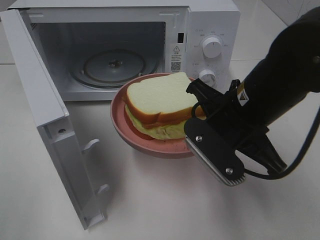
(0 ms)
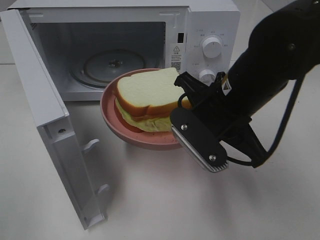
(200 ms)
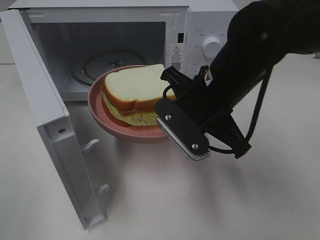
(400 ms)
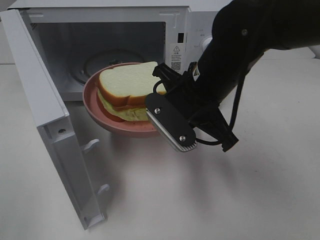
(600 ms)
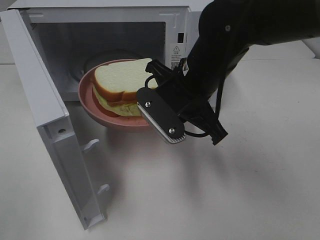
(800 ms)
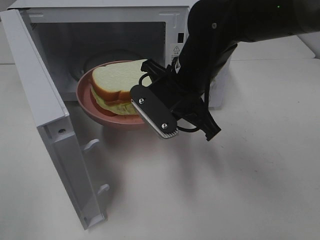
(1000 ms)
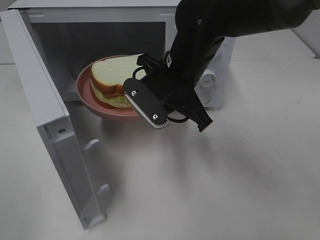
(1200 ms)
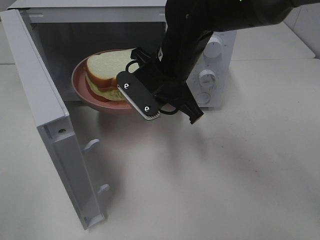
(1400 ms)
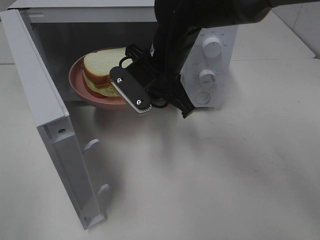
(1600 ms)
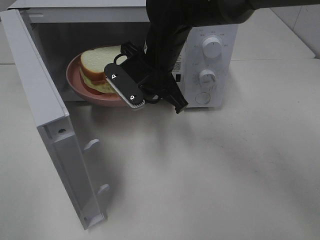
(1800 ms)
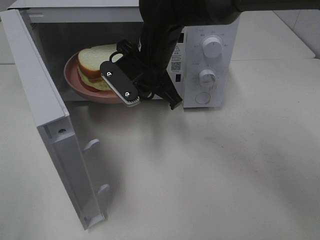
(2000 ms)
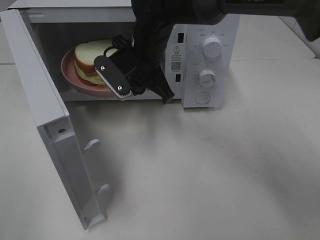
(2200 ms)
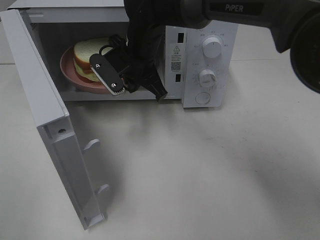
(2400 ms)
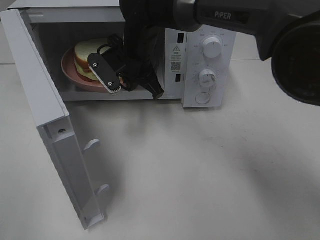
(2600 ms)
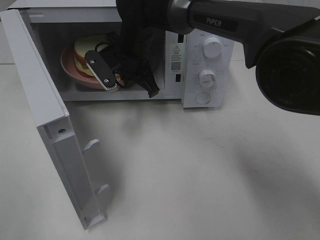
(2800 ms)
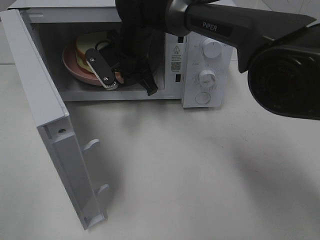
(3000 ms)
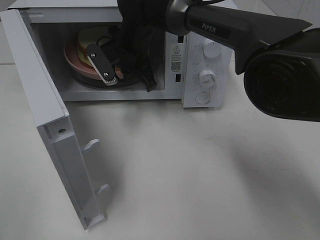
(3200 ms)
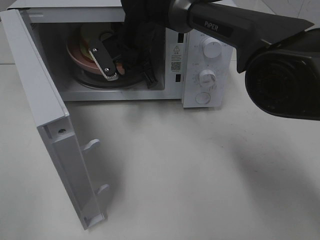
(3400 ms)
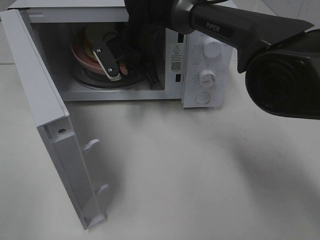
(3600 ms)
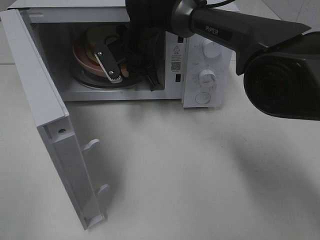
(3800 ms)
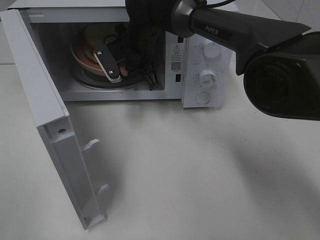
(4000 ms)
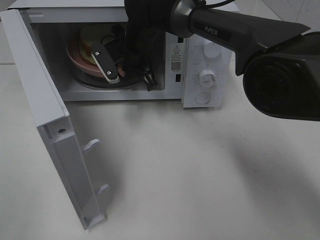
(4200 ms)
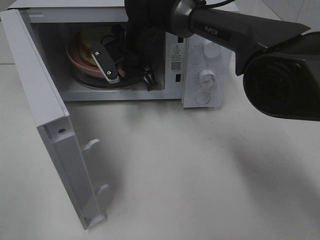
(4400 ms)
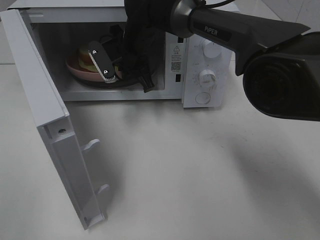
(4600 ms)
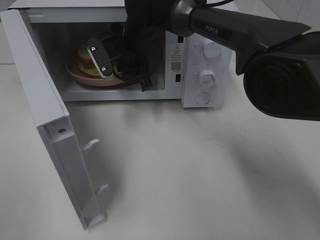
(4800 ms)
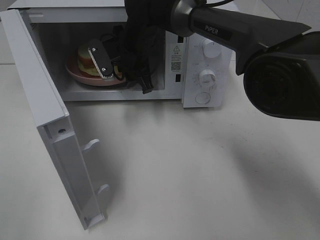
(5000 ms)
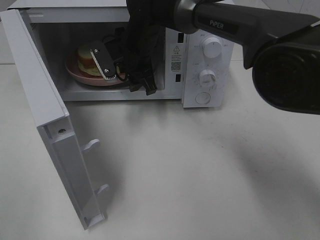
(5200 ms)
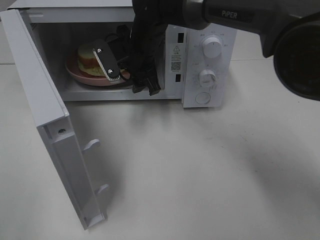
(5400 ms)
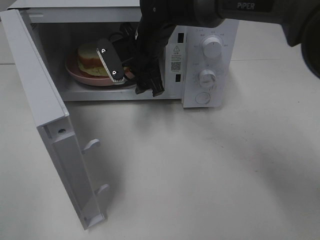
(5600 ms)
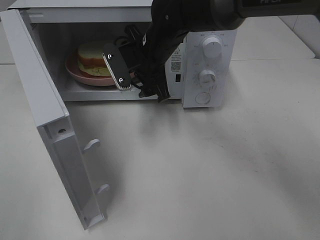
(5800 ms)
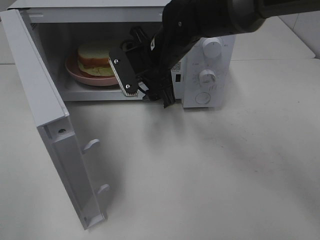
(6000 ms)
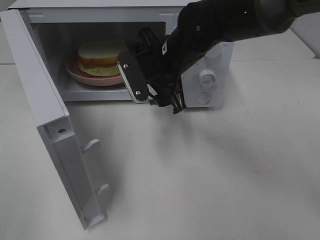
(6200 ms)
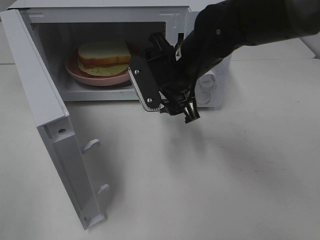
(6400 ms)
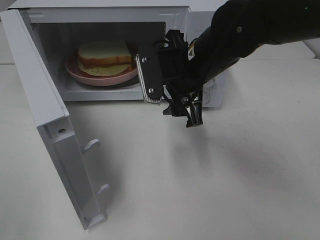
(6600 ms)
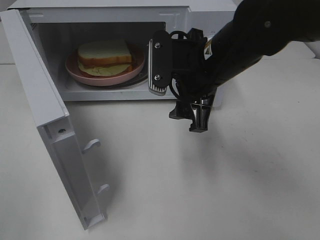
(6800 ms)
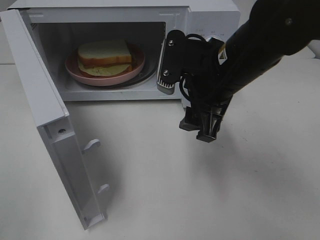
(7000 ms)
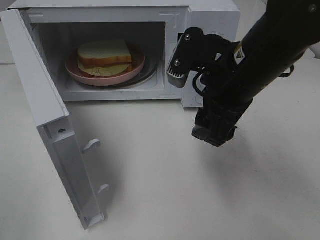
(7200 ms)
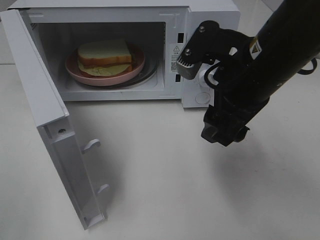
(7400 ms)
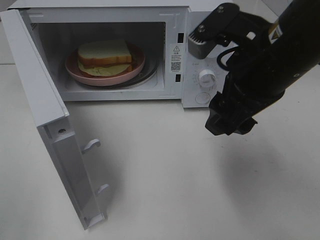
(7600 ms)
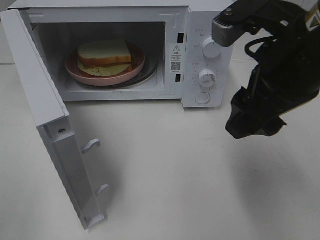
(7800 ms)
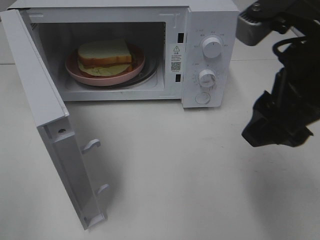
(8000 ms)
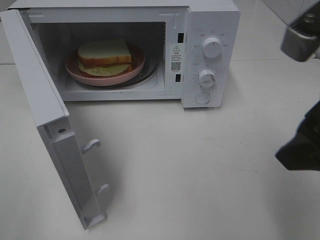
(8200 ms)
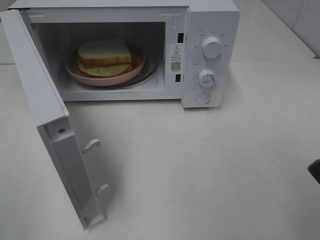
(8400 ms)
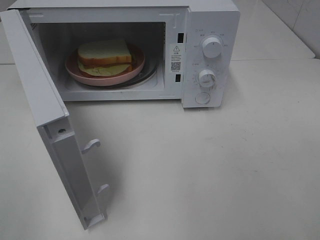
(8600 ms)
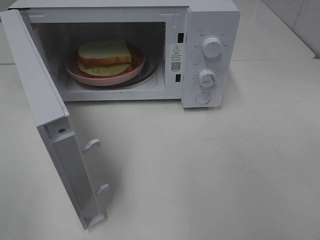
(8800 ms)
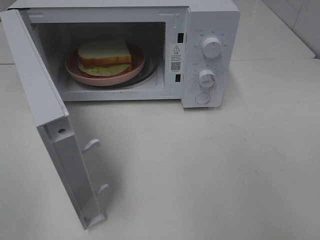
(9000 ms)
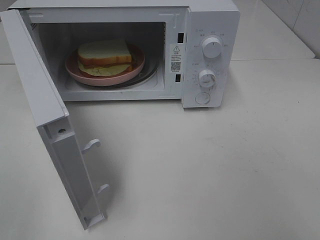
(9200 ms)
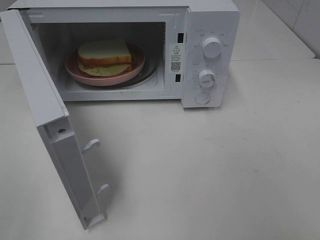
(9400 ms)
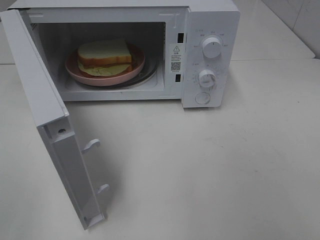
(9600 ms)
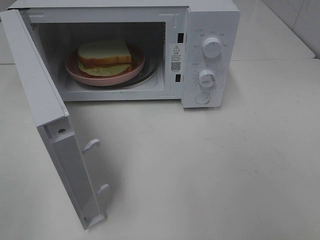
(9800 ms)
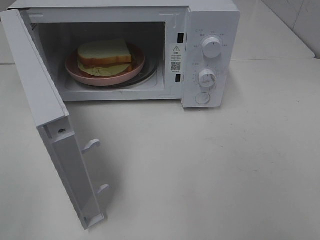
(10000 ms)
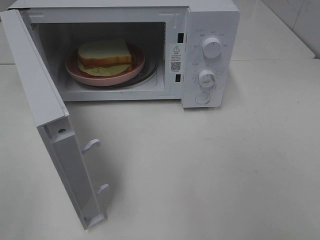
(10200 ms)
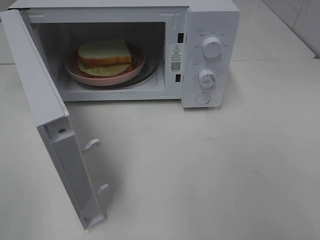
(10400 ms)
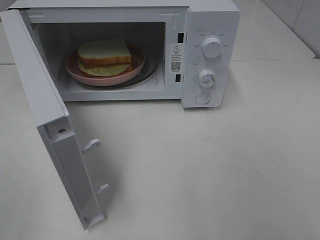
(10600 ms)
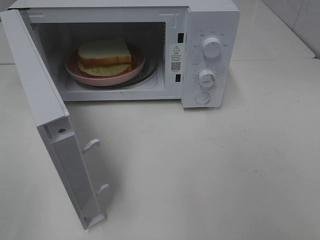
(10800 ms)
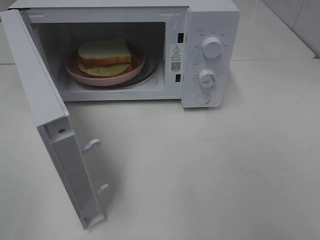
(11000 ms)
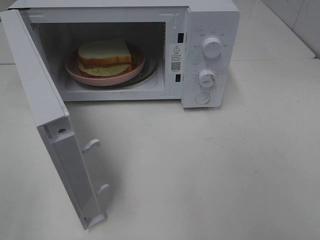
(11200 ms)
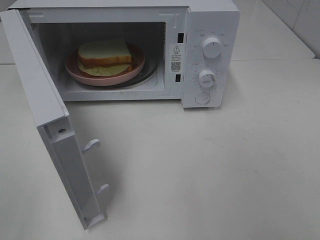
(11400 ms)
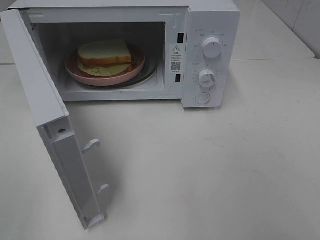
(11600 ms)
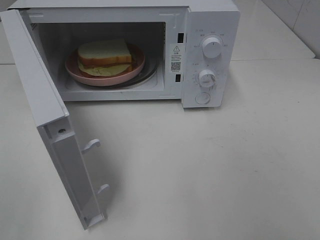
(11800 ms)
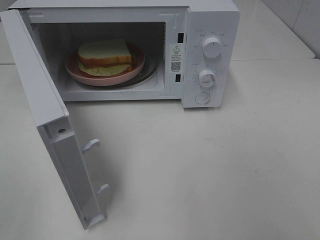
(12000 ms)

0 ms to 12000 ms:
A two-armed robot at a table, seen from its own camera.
Task of the whole recording: Heat Sandwich.
Step, 0 ms to 4800 ms: Right hand: place the plate in the microwave.
0 ms to 1600 ms: The right gripper shifts some 15 cm forward and to the left.
1600 ms to 3000 ms: The right gripper is displaced forward and to the left by some 10 cm.
3000 ms to 4400 ms: The grippers move only a little.
4400 ms to 6000 ms: The right gripper heads backward, covering approximately 5 cm, and opens.
6000 ms to 7600 ms: The right gripper shifts roughly 20 cm backward, to the right and upward.
7600 ms to 9000 ms: The right gripper moves backward and to the right, about 20 cm.
10400 ms to 12000 ms: Both grippers stay put.

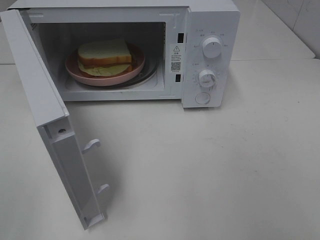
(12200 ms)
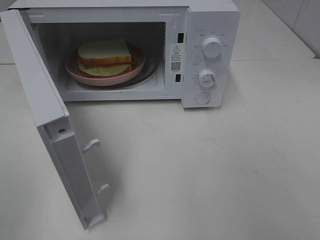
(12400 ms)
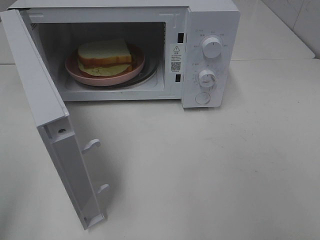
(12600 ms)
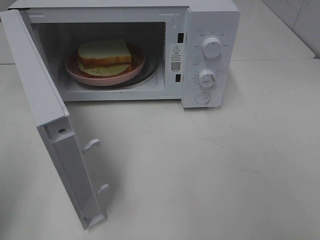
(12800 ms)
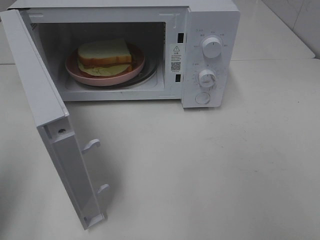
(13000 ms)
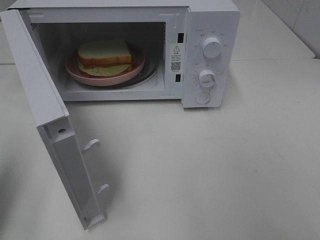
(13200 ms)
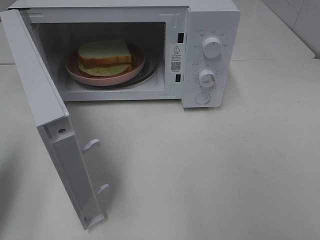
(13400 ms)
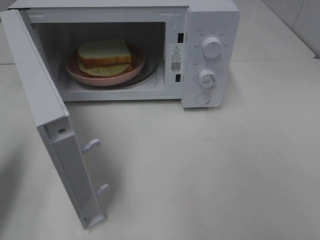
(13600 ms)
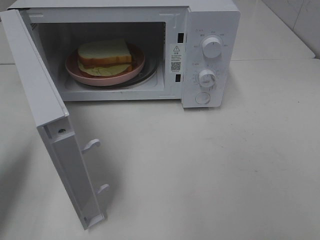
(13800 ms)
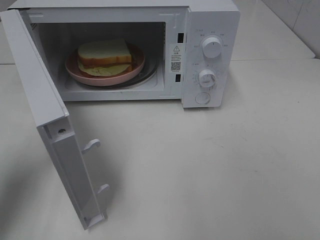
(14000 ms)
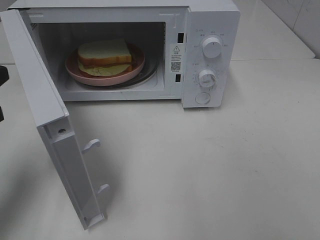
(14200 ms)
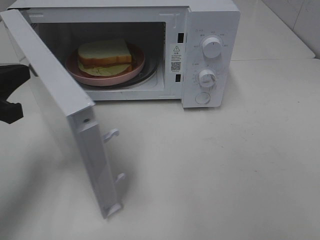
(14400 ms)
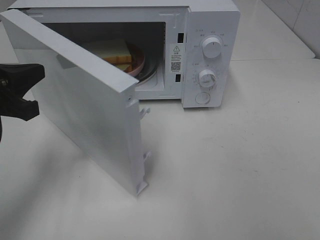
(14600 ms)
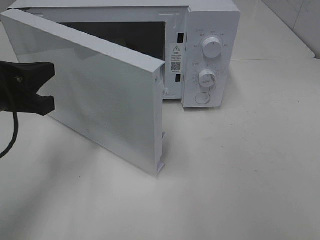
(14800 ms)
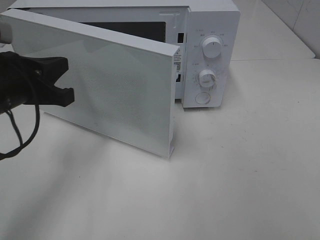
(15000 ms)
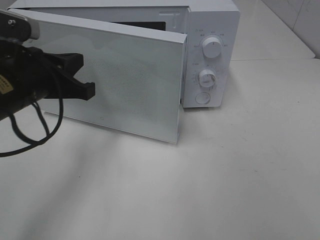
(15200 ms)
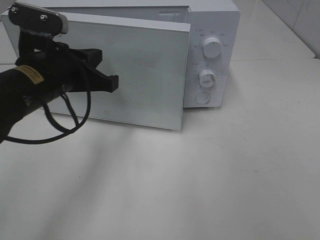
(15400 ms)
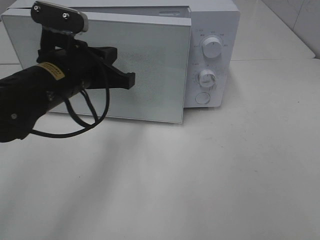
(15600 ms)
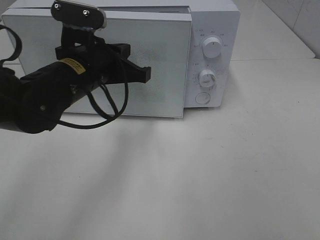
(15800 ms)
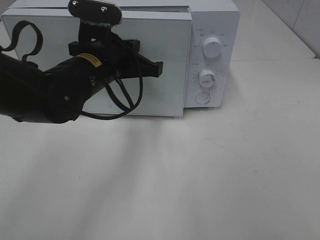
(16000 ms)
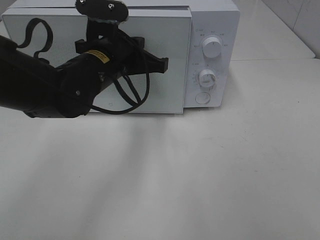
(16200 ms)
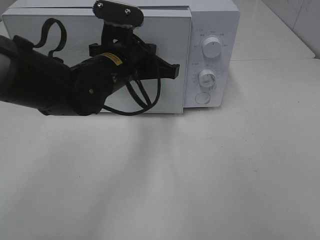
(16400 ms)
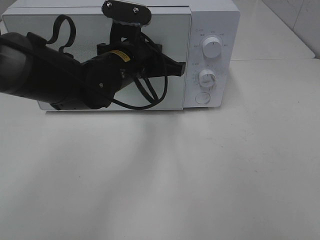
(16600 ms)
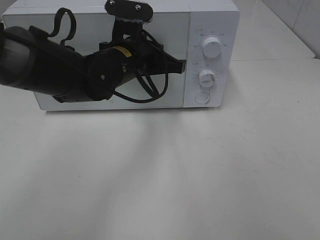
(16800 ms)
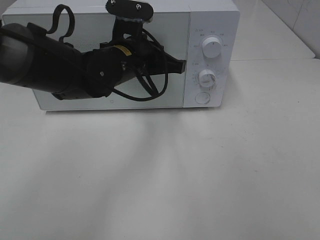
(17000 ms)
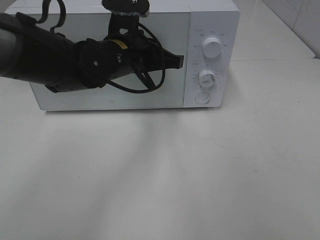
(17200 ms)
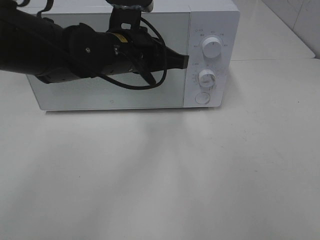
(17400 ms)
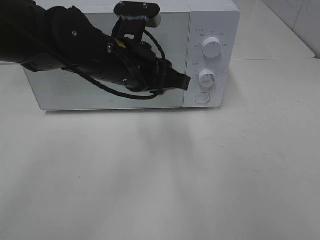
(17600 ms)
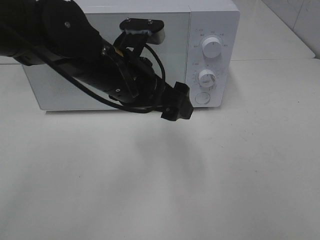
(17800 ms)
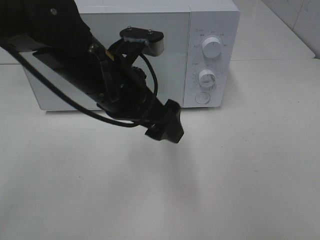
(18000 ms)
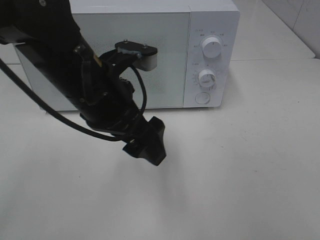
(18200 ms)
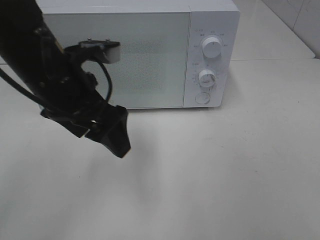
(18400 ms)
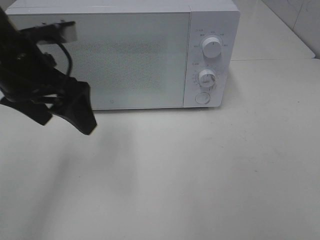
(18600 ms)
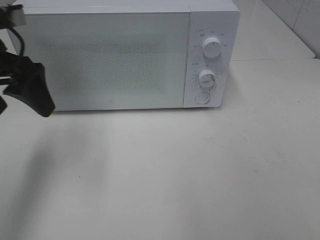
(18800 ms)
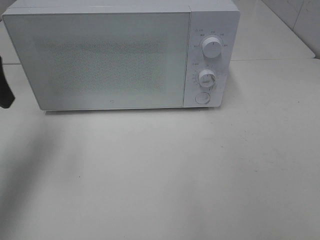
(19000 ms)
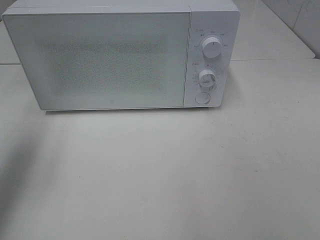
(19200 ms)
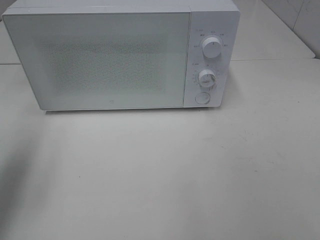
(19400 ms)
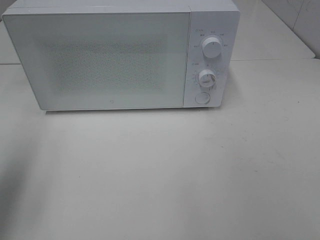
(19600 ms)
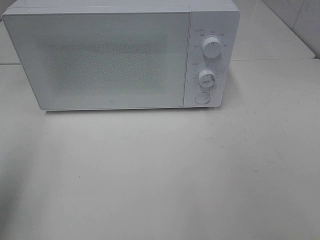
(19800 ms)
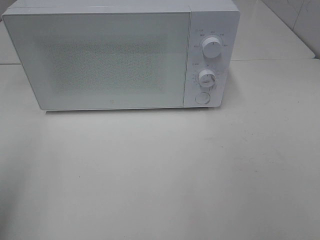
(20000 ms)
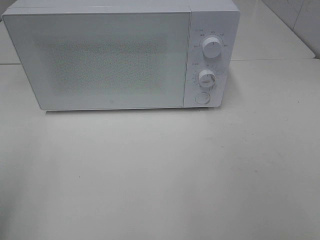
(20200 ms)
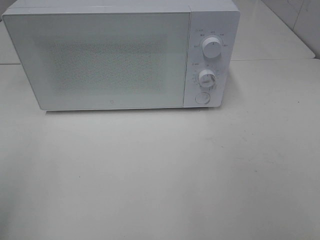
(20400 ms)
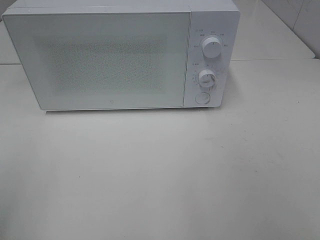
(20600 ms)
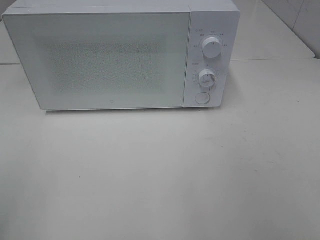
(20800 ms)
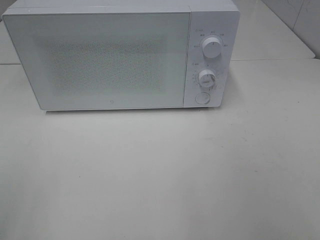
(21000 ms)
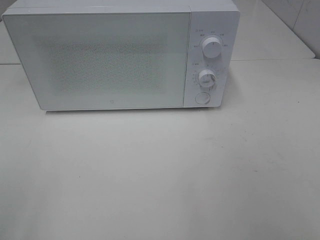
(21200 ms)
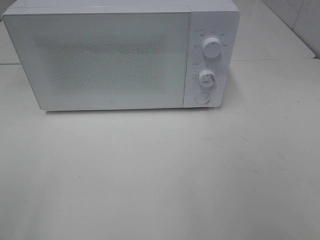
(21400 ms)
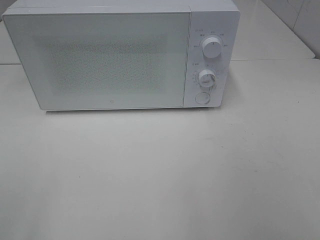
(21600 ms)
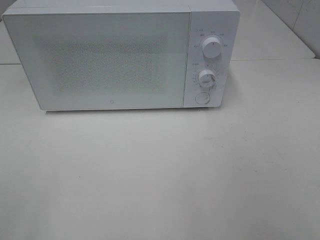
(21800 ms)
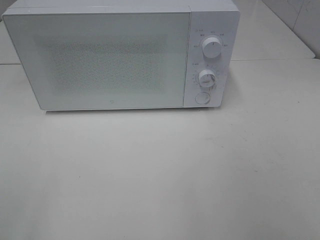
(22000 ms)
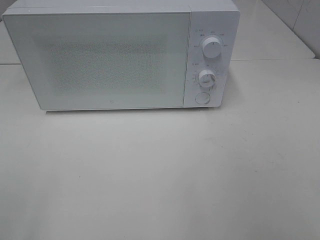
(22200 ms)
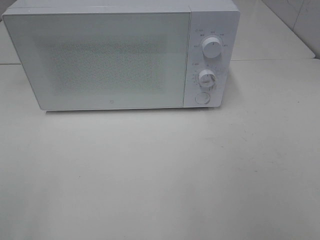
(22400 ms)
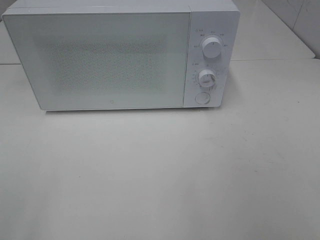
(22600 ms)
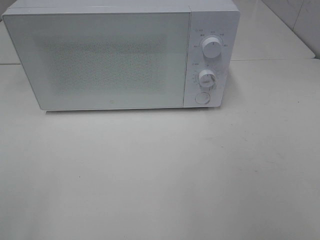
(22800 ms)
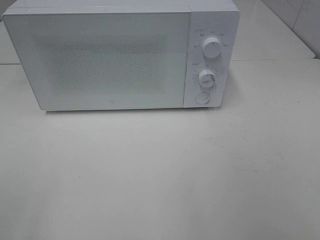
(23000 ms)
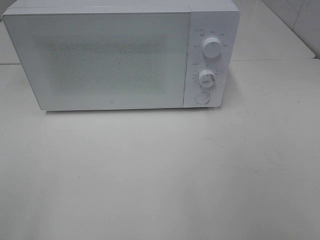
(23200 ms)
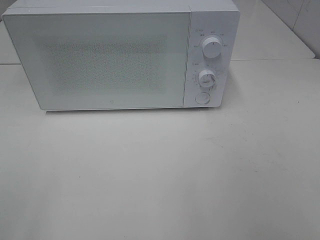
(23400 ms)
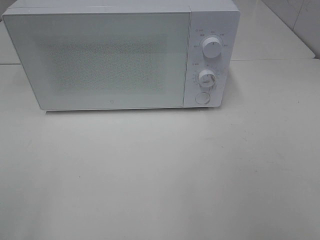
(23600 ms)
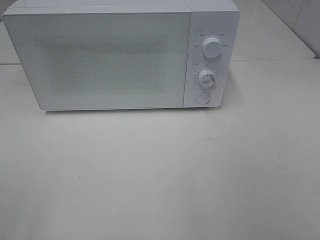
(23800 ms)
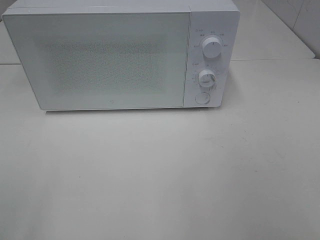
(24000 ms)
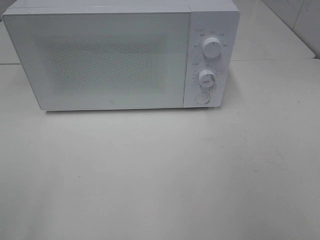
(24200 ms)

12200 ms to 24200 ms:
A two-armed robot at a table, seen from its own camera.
Task of the whole recording: Heat Sandwich.
Step, 12200 ms to 17800 ms: Left hand: close the microwave door.
12200 ms to 13800 ms: The left gripper travels forward by about 20 cm, and closes its fingers.
13800 ms to 15200 ms: The left gripper moves to the right and forward, about 15 cm.
15200 ms to 16600 ms: The left gripper is displaced to the right and forward by about 15 cm.
16600 ms to 18200 ms: The left gripper travels backward by roughly 10 cm, and opens its fingers.
18200 ms to 19800 ms: The left gripper shifts approximately 25 cm to the left and backward.
19800 ms to 21200 ms: The left gripper moves backward, approximately 15 cm.
